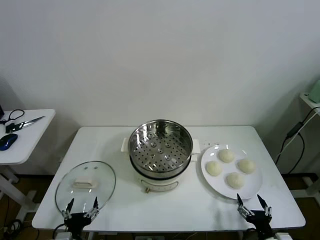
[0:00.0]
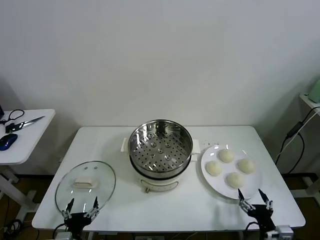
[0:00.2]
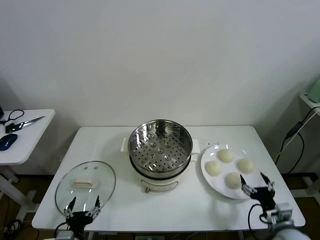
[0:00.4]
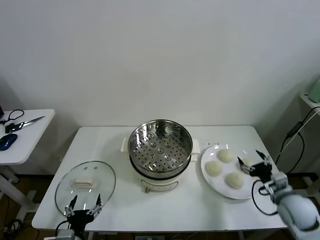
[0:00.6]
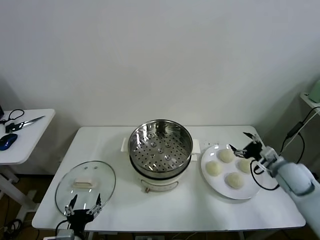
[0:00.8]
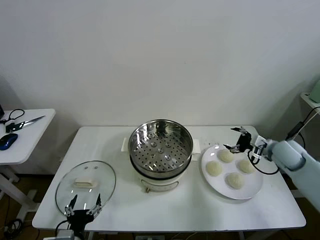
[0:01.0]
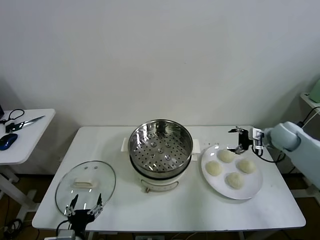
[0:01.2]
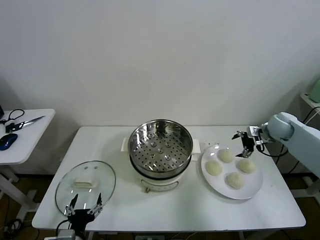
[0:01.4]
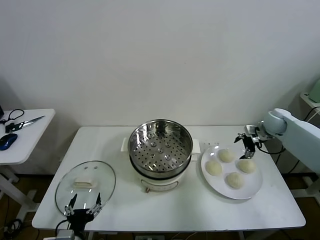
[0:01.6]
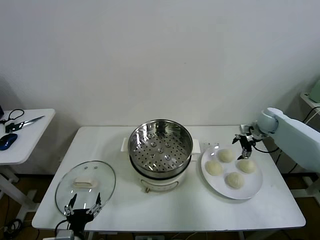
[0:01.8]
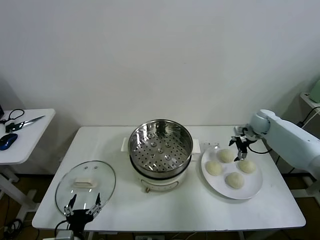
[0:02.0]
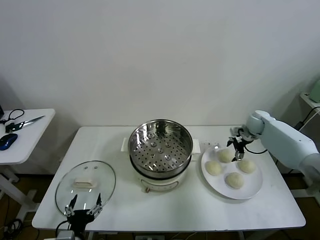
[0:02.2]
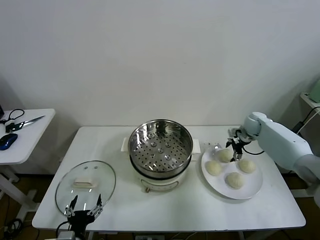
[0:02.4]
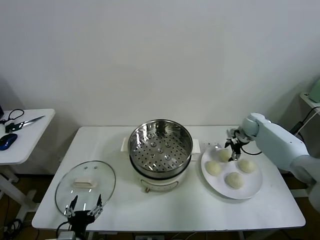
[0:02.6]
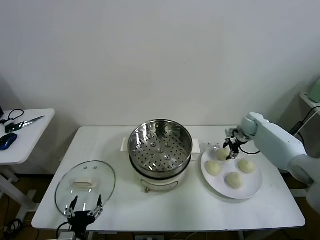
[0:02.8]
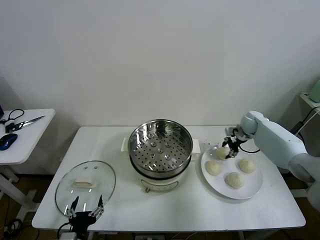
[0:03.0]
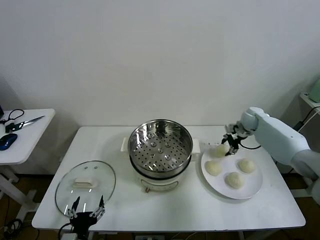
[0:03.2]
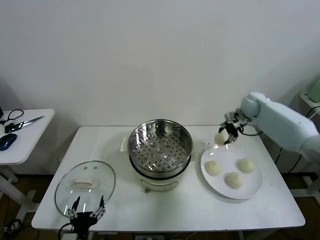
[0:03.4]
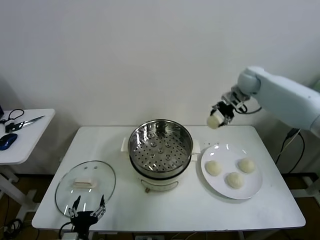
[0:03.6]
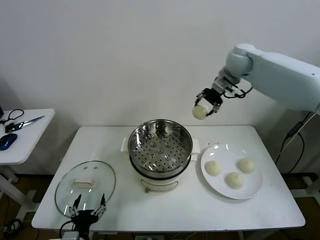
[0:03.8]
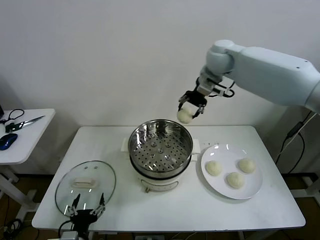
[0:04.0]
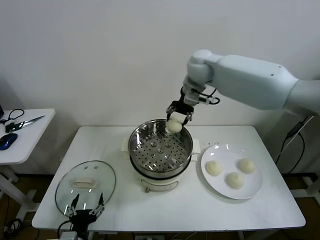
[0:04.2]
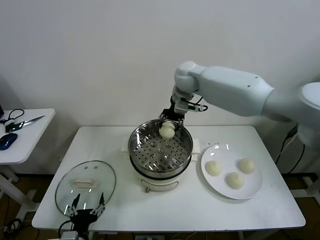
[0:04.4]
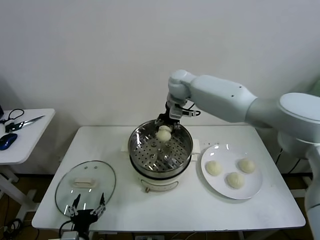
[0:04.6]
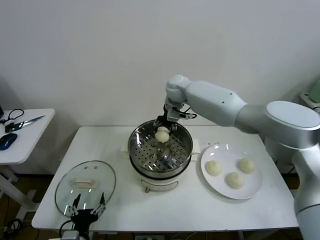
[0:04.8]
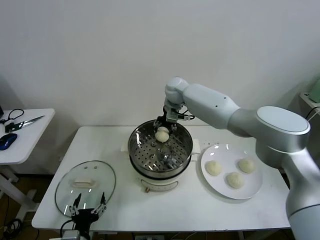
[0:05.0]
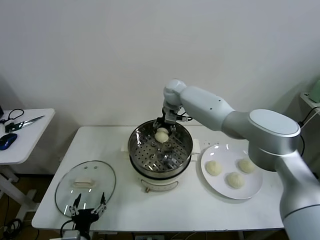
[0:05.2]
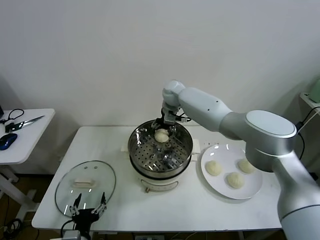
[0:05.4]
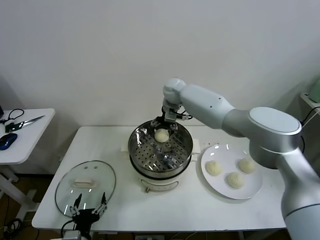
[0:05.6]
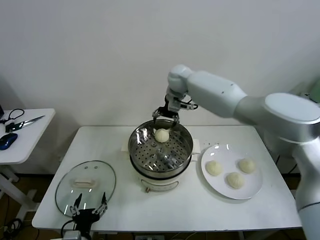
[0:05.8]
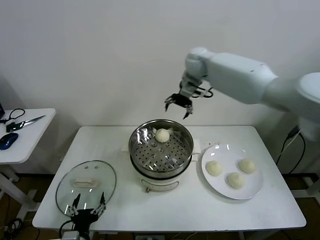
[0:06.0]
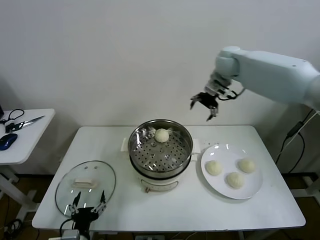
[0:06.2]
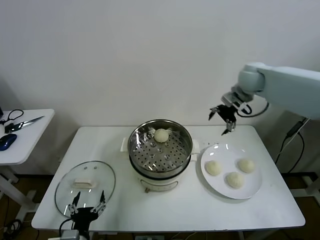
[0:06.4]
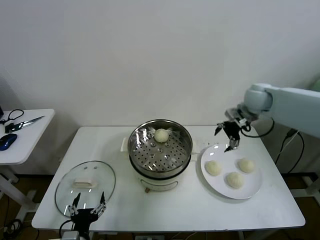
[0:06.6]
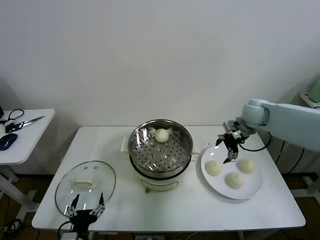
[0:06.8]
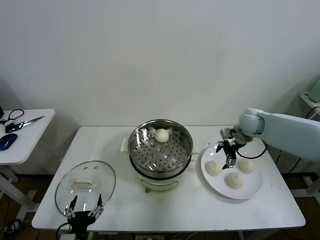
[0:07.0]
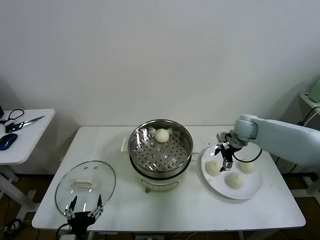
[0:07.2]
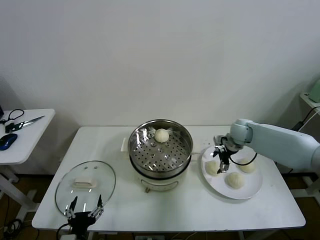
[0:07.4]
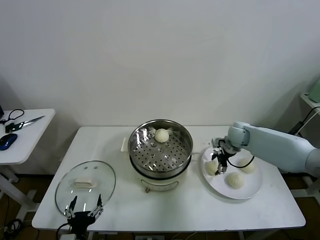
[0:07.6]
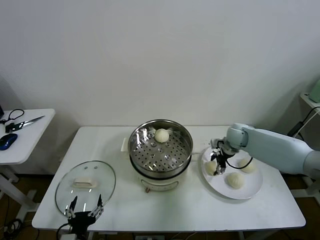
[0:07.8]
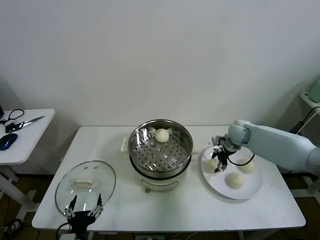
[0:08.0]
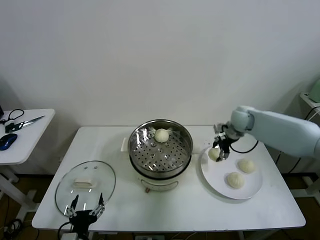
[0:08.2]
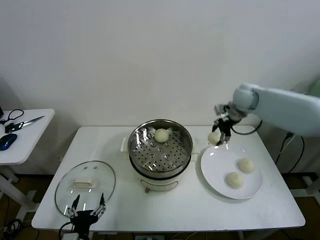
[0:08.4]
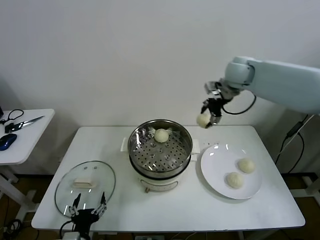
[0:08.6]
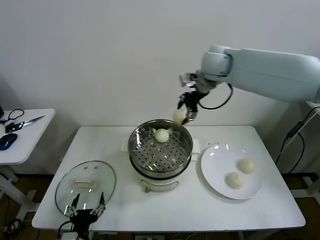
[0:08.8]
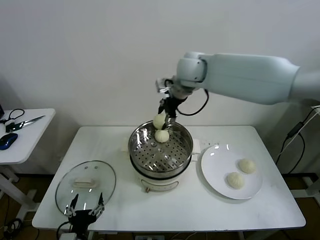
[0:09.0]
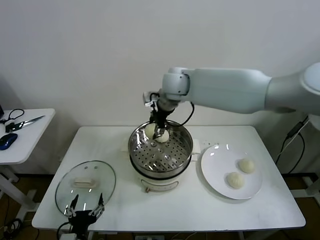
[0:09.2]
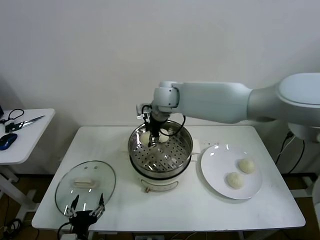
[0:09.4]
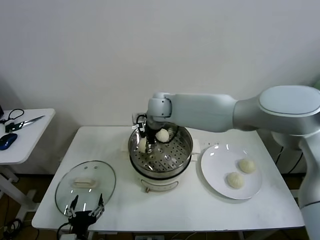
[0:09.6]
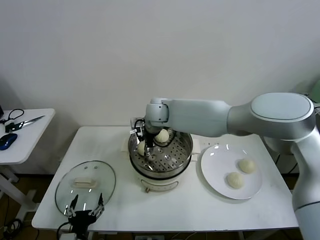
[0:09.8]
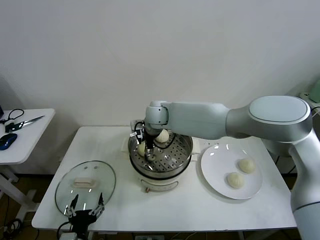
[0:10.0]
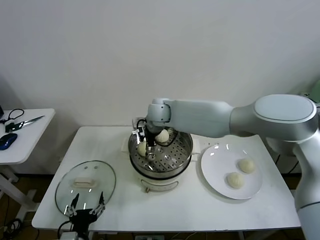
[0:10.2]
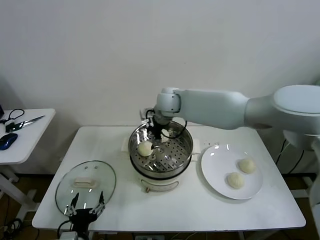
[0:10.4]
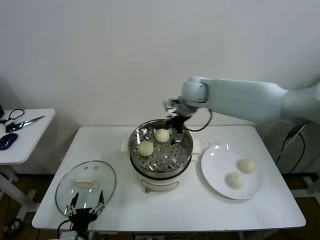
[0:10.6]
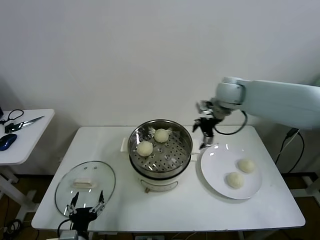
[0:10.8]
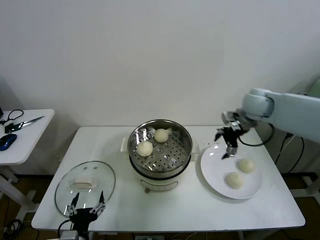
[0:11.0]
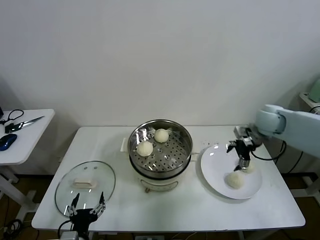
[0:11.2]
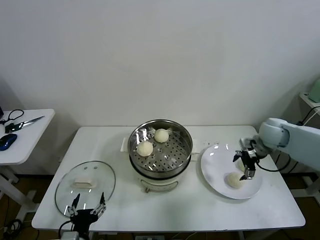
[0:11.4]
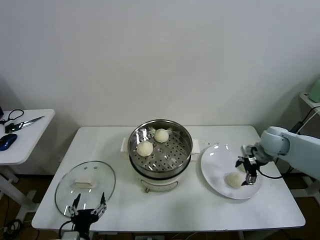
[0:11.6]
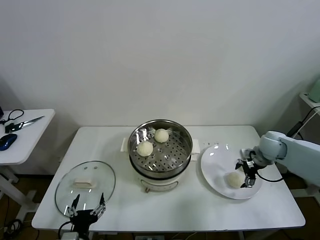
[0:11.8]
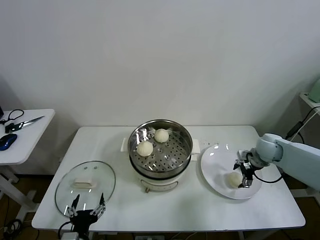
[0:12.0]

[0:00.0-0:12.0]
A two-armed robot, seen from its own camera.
Task of the whole recording: take steamed baozi put them in steamer then cover it.
Step, 0.0 to 2.6 s: Grasp the baozi in the plate with right gripper.
Step, 3.0 to 5.4 s: Place the baozi on the steamer with right gripper.
Step, 5.6 to 7.6 s: Grasp the baozi in the plate with right gripper.
Step, 7.8 to 10.2 s: Place the baozi on the steamer with right gripper.
1.6 to 3.0 s: The right gripper ends up approximately 10 cm from where it was, and closes its fingers.
3.0 to 4.4 s: The right gripper travels to the left and upward by approximately 35 cm.
4.4 to 6.0 s: The right gripper moves to the right and upward, roughly 15 cm, and opens.
6.0 to 7.6 s: The right gripper goes approximately 30 cm downward and to the right, and closes up.
7.6 to 9.0 s: The right gripper is displaced upward and to the left by some 35 cm.
9.0 to 10.4 s: The right gripper is displaced downward by some 10 cm, and opens up.
10.4 to 12.0 s: The right gripper goes about 40 cm to the right and downward.

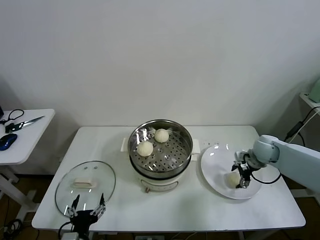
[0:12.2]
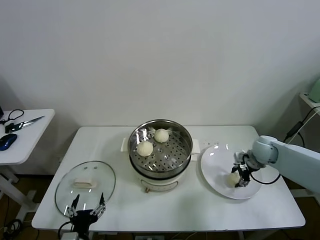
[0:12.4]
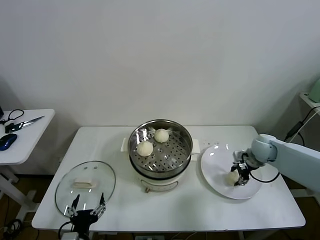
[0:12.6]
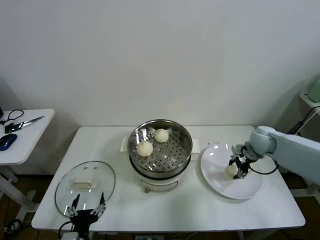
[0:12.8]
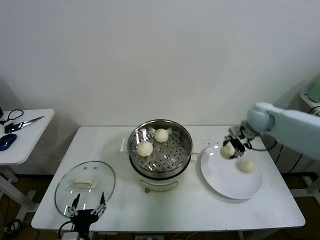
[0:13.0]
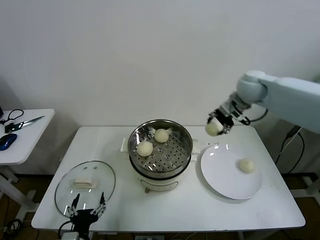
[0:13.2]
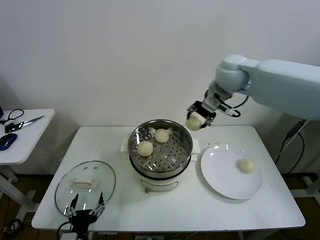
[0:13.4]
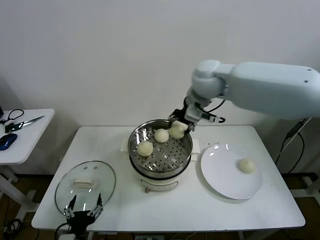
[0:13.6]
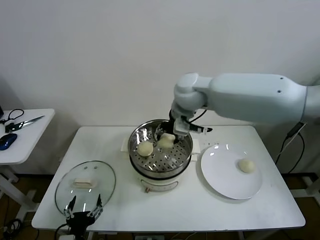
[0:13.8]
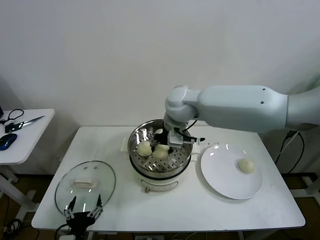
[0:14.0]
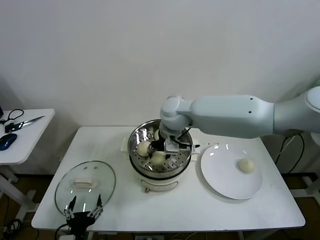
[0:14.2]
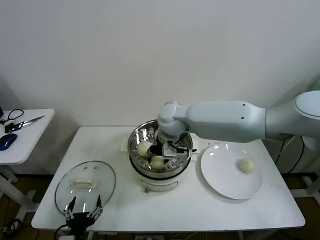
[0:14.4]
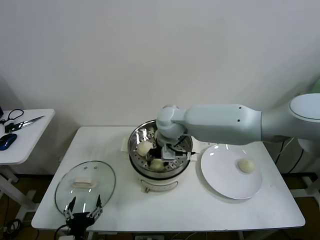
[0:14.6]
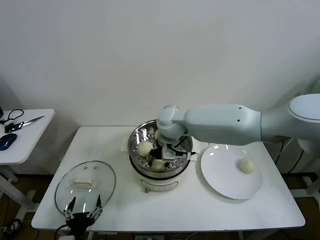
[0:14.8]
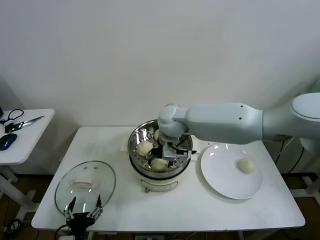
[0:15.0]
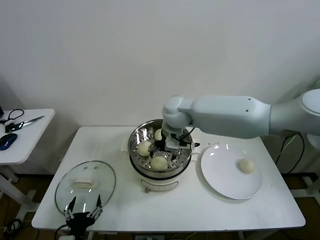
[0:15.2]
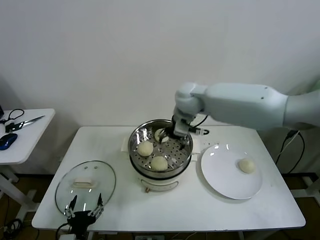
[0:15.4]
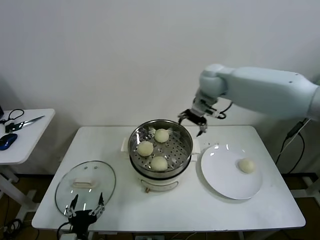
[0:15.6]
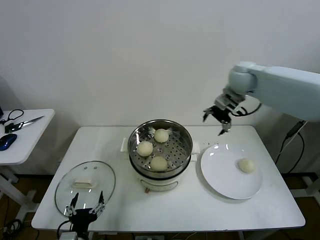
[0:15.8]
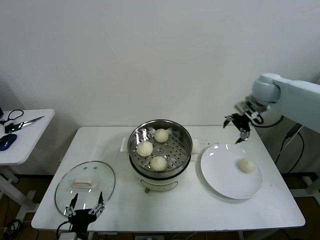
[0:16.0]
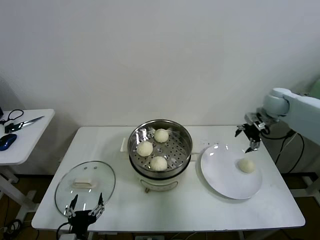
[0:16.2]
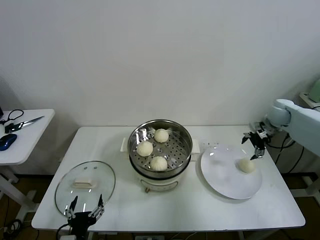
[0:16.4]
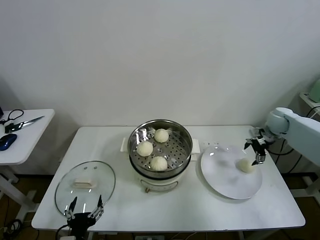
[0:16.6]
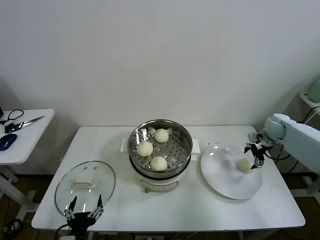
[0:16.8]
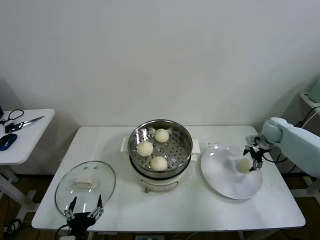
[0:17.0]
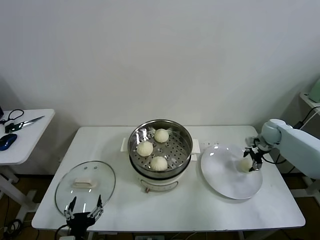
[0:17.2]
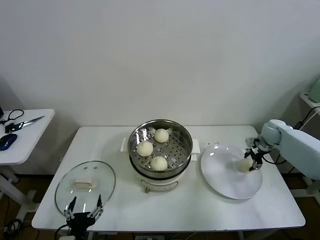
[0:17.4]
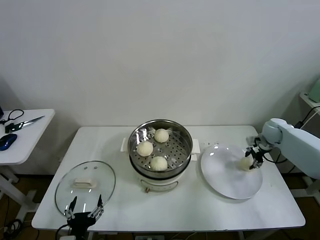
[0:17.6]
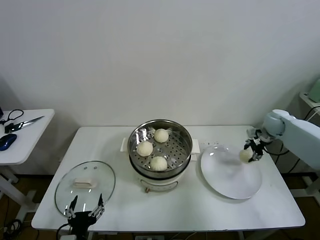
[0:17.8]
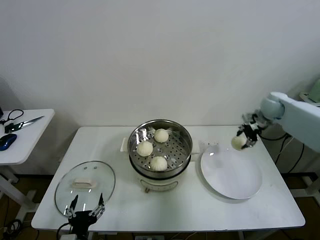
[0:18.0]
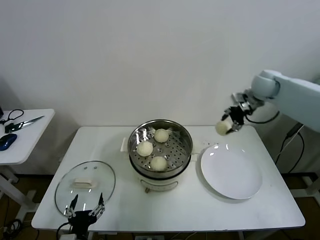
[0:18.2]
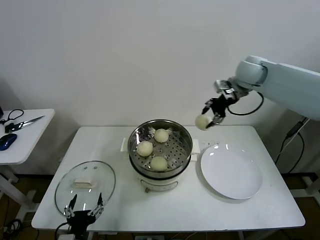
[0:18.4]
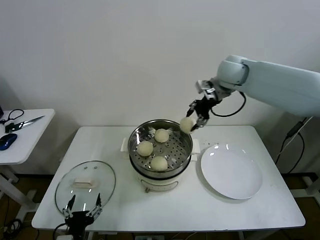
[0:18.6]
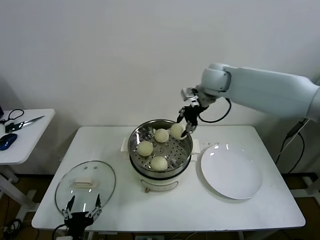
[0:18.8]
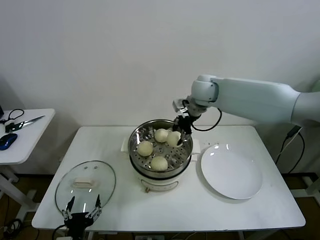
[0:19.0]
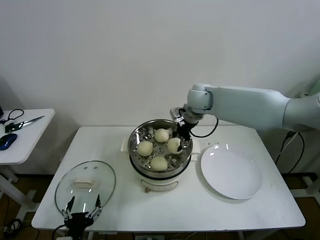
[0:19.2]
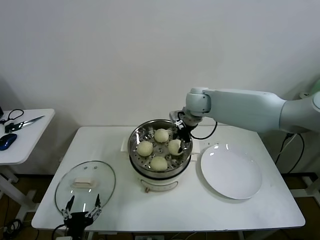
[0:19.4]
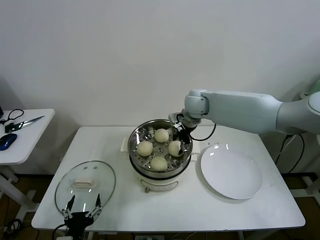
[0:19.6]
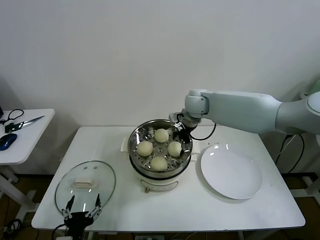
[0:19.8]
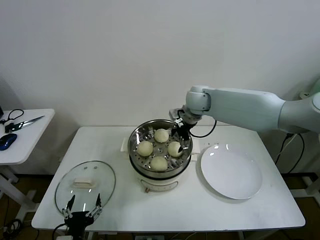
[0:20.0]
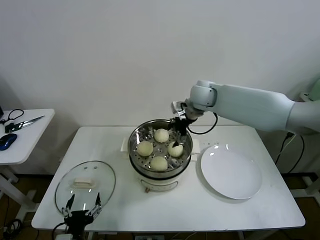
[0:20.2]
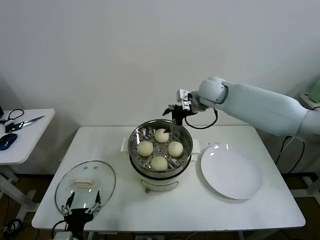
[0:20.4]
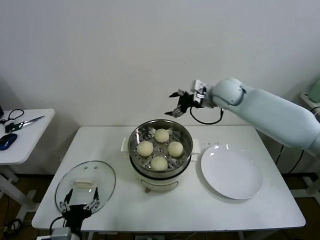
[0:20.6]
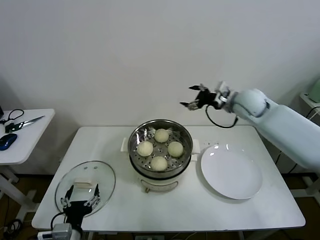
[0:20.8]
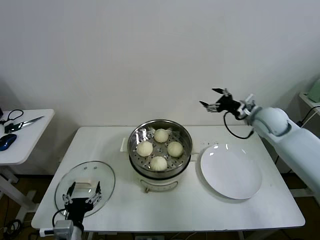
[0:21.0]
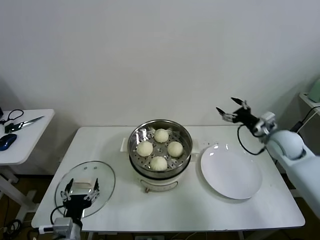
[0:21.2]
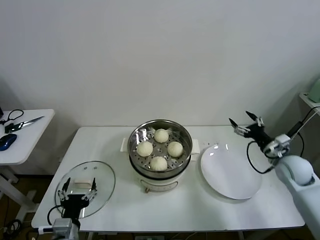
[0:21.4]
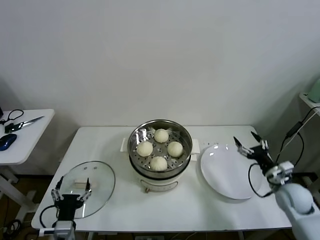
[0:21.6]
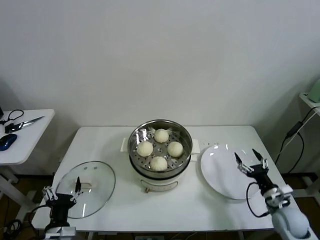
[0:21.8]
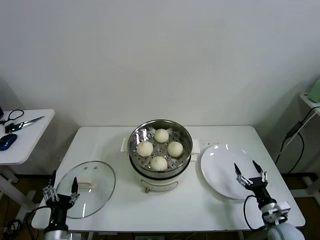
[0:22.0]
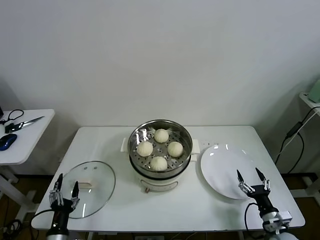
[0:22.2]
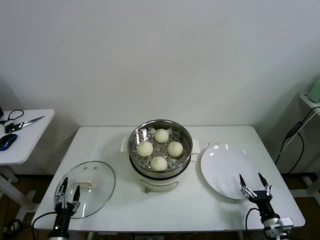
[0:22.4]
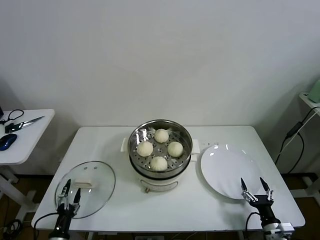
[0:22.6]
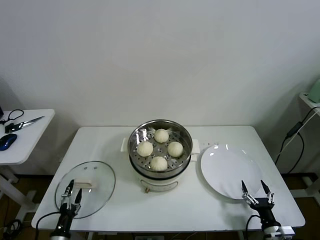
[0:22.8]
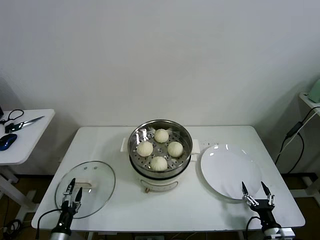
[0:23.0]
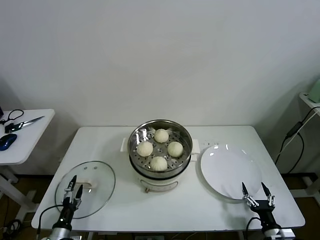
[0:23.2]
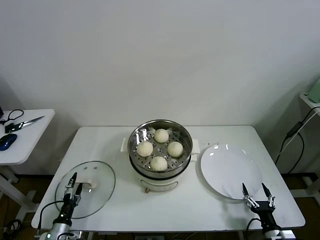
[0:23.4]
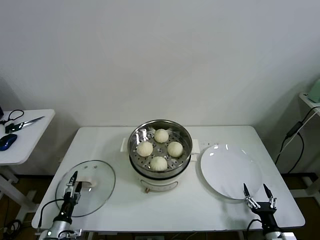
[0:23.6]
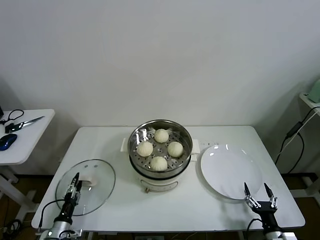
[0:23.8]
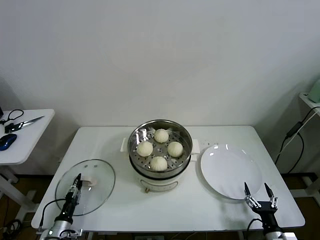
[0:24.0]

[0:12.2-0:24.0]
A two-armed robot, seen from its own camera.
Task of the whole recording: take steamed baozi put them in steamer then cover it.
Step, 12.4 to 15.0 s: Place the baozi on the steamer with right gripper.
Step, 15.2 to 17.4 s: Grasp the baozi in the plate with right gripper.
Step, 17.6 to 19.8 s: Place the baozi on the steamer with right gripper.
12.2 to 13.6 s: The right gripper moves to the left and upward, roughly 40 cm, and closes its fingers.
13.6 to 15.2 s: The right gripper heads downward and to the left, covering about 10 cm, and opens its fingers.
15.2 to 16.6 s: The right gripper travels to the right by about 40 cm.
16.6 to 18.2 s: The right gripper moves upward and to the left, about 20 cm, and closes.
18.2 to 19.6 s: The right gripper travels to the left by approximately 20 cm.
19.6 to 21.0 s: The right gripper moves to the right, some 25 cm, and opens.
21.0 to 22.6 s: The left gripper is displaced downward and to the left by approximately 15 cm. Meanwhile the right gripper is displaced downward and backward by about 40 cm.
22.6 to 24.0 s: The left gripper travels forward by approximately 5 cm, and closes its fingers.
